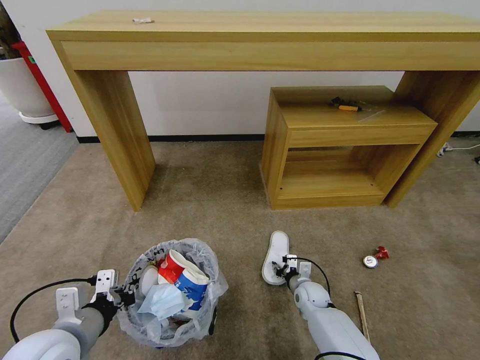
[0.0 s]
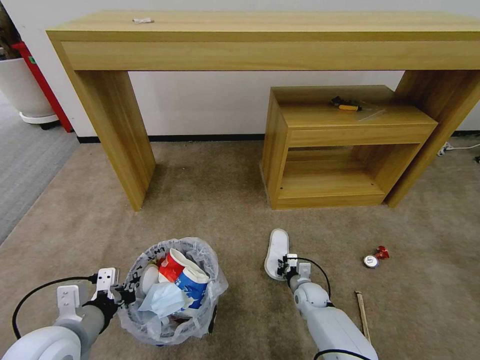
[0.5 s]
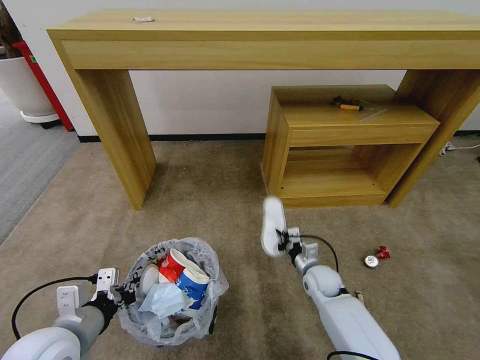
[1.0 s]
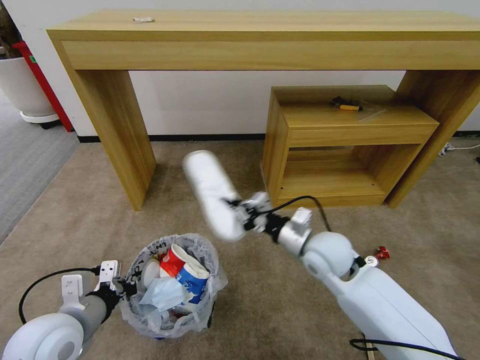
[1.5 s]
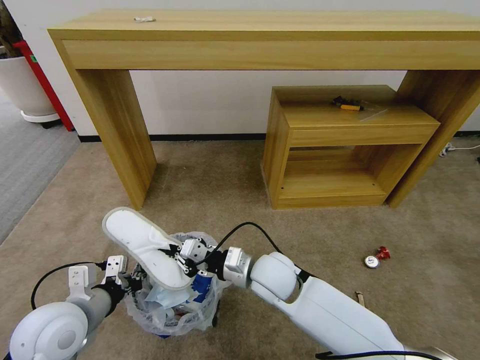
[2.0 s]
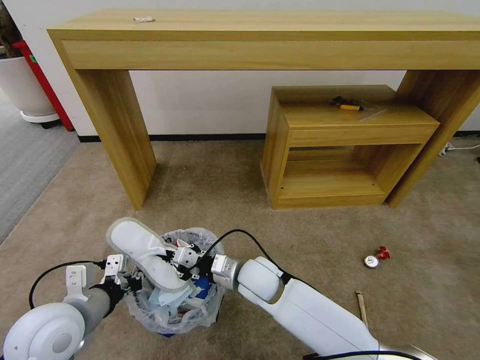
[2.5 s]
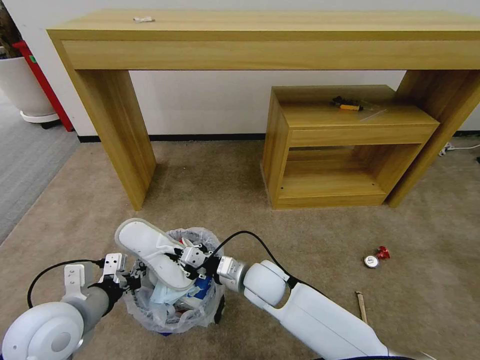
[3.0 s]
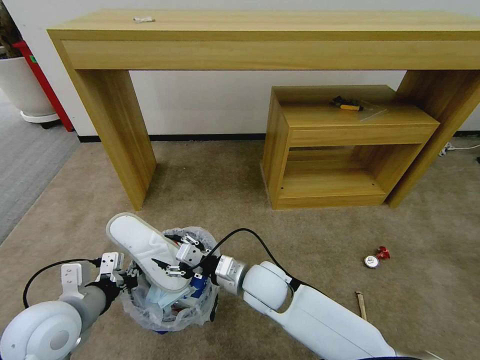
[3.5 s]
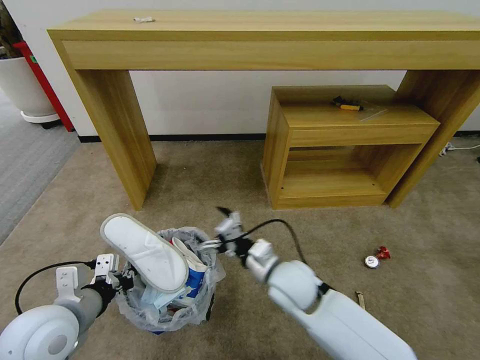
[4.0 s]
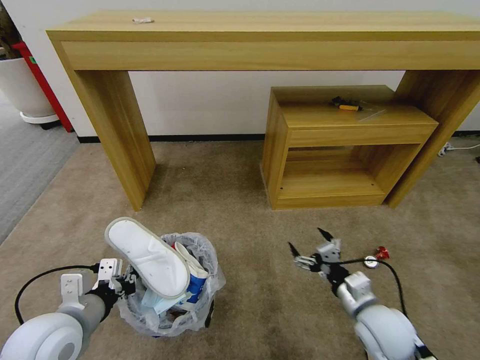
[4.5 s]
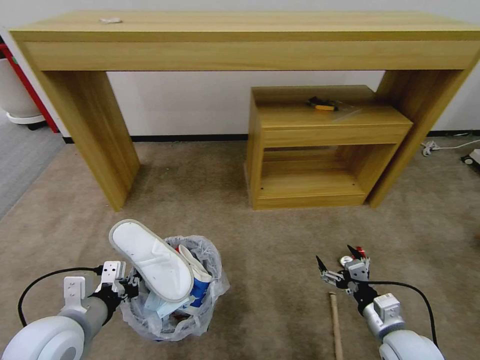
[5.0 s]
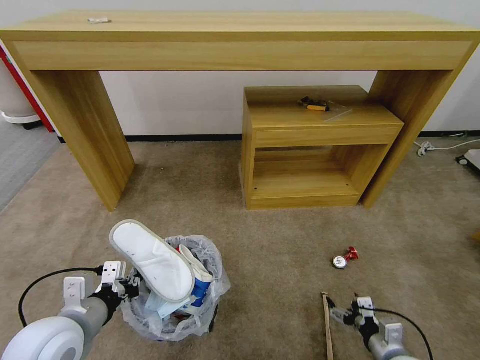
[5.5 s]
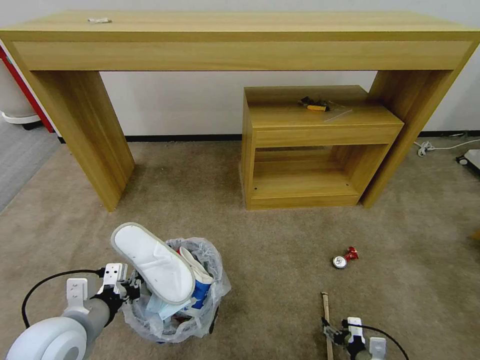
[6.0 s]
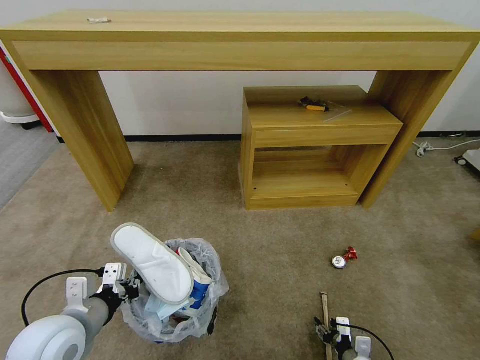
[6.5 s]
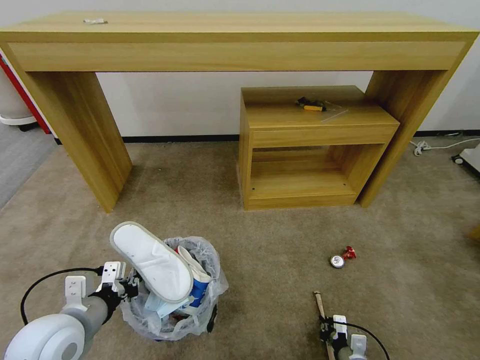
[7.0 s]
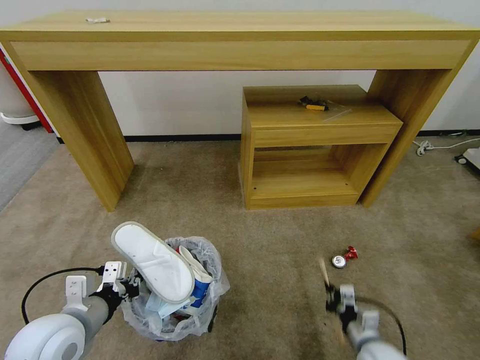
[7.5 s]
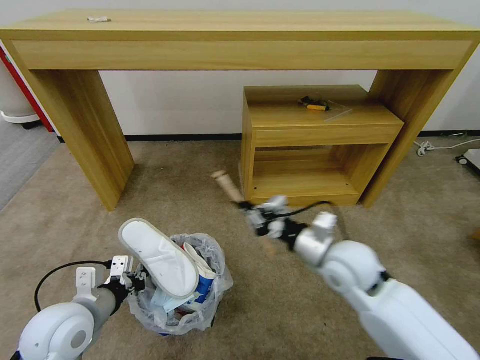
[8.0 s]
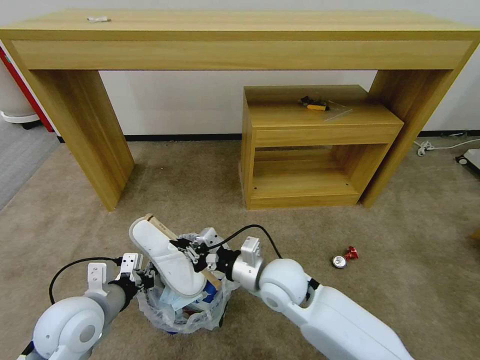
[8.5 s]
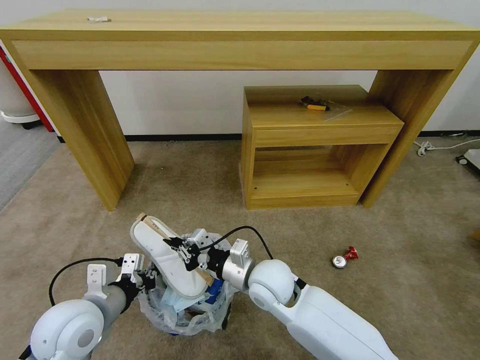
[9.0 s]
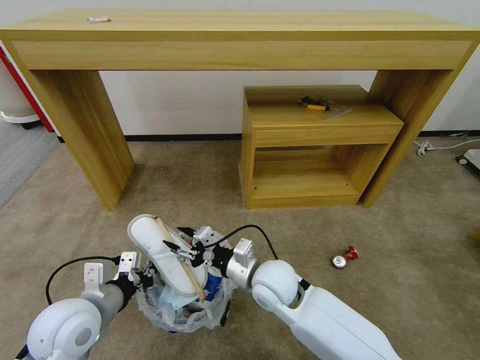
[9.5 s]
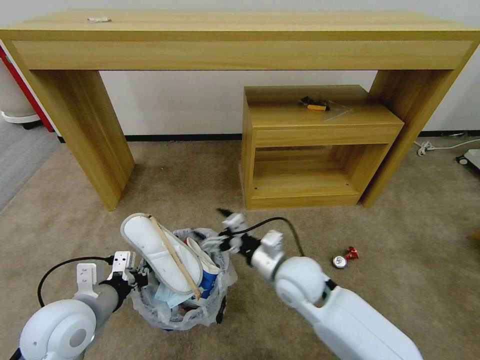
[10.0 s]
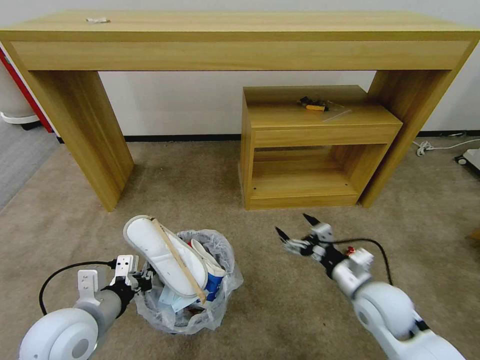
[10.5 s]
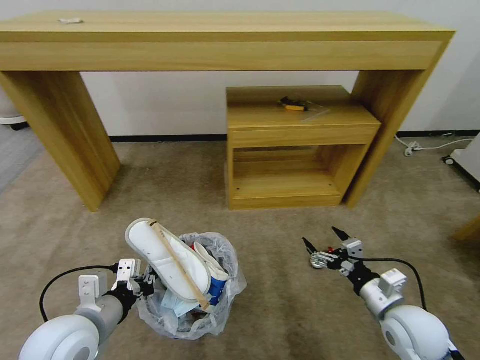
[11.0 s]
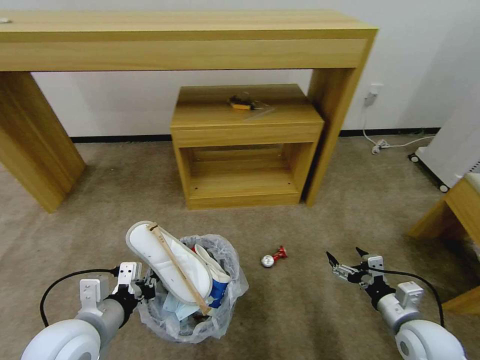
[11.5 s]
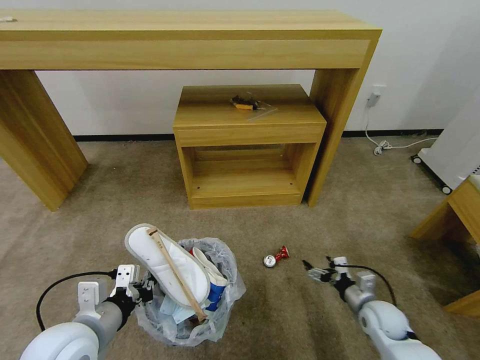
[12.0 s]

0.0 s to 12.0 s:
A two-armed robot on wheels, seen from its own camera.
Task of the whole recording: Pick up the trash bin and place the garbage on the floor into it.
0.0 to 2.0 s: The right gripper shifts roughly 30 cm upward and to the left, and closes up.
2.0 to 4.0 s: The right gripper opens up.
4.0 to 6.0 s: The right gripper travels to the right, downward and backward by about 35 cm.
6.0 to 8.0 s: The right gripper travels upward, forward and to the left by about 35 cm, and closes up.
8.0 to 10.0 s: The right gripper goes about 10 cm to the left and downward, and opens up.
10.0 to 12.0 s: The right gripper heads to the right and downward, covering roughly 30 cm.

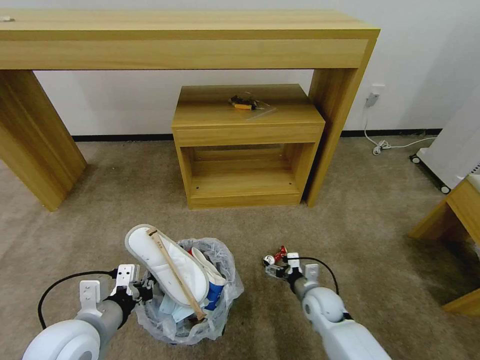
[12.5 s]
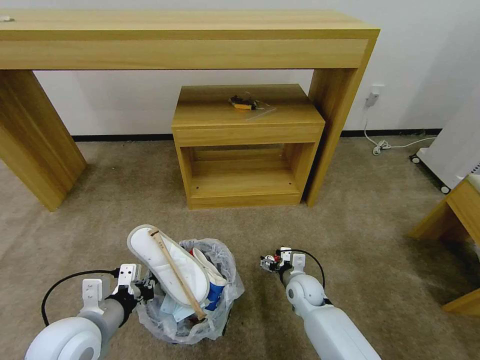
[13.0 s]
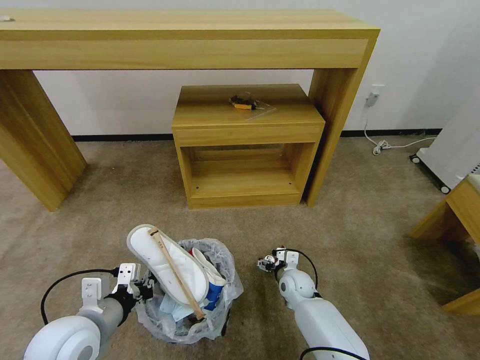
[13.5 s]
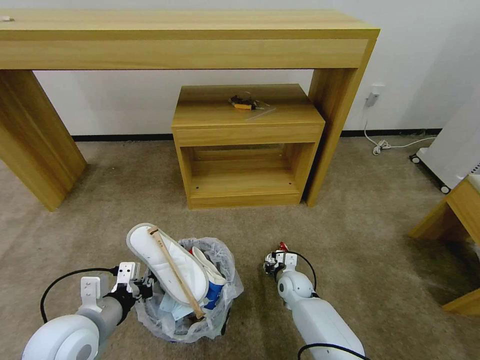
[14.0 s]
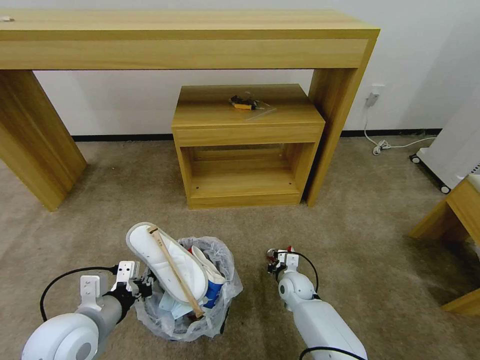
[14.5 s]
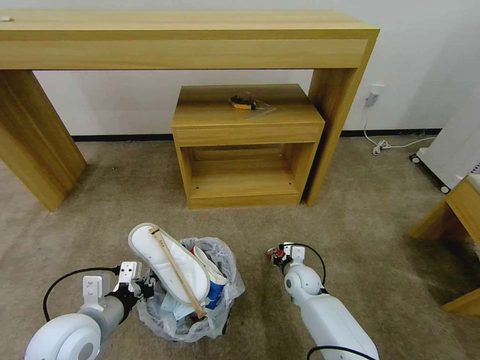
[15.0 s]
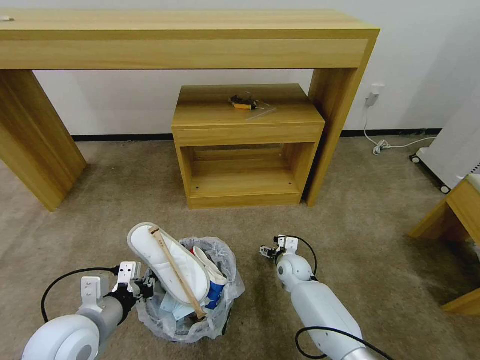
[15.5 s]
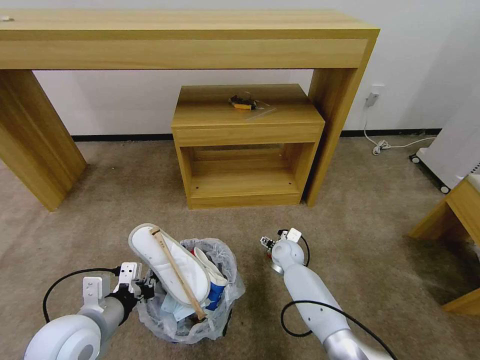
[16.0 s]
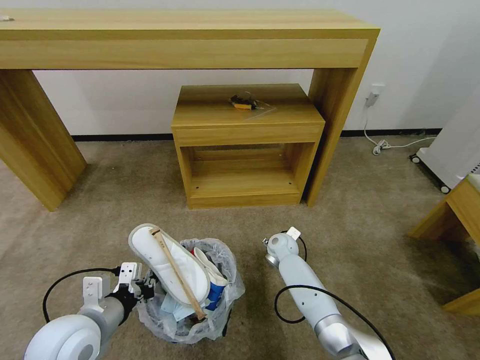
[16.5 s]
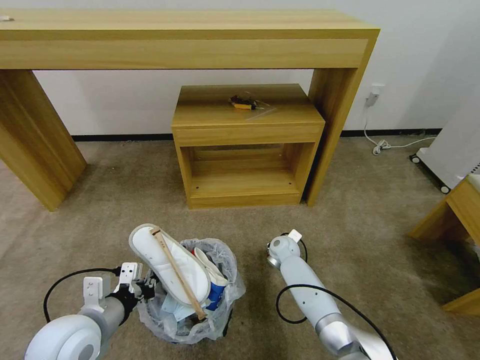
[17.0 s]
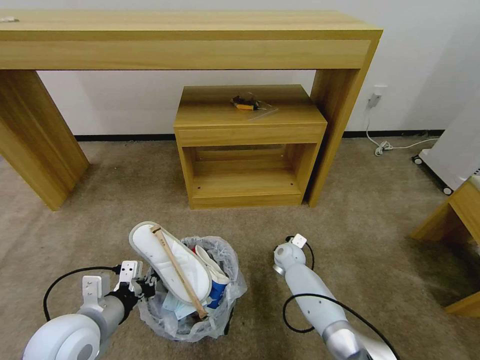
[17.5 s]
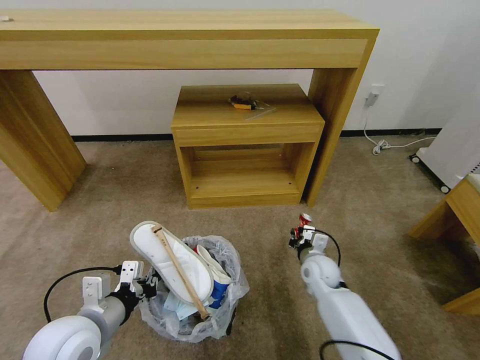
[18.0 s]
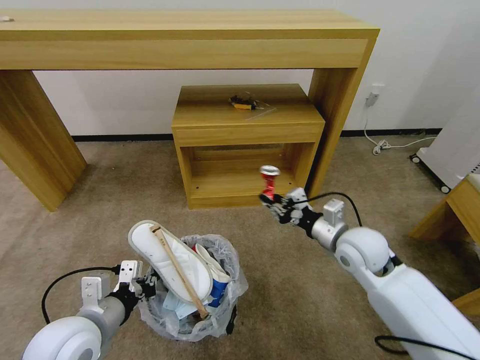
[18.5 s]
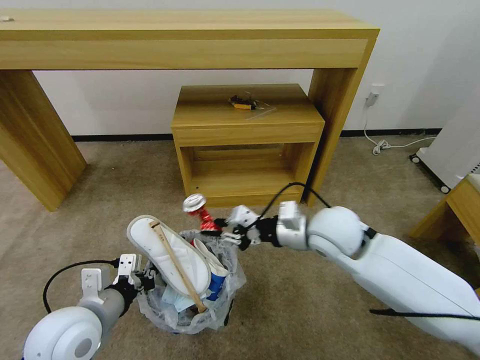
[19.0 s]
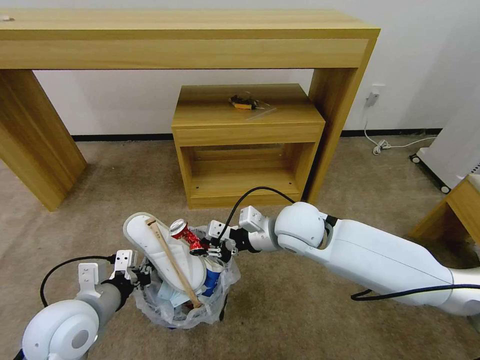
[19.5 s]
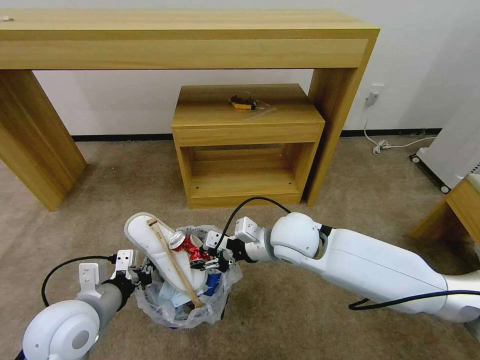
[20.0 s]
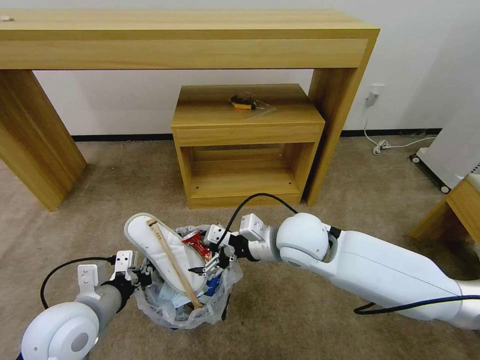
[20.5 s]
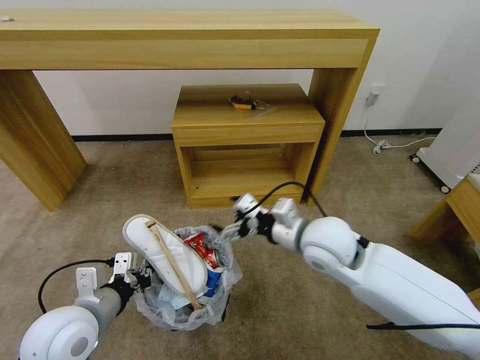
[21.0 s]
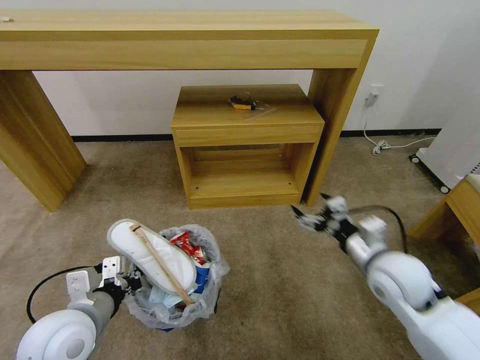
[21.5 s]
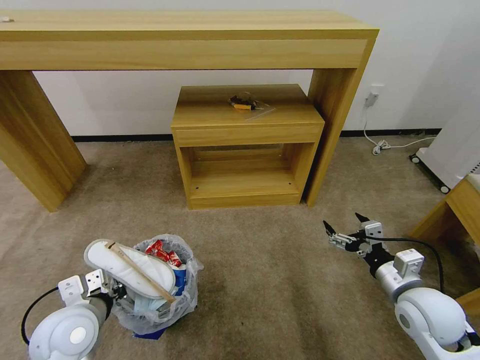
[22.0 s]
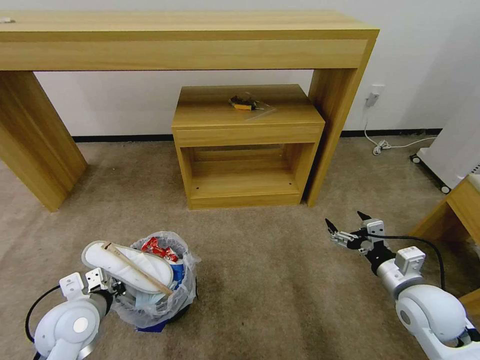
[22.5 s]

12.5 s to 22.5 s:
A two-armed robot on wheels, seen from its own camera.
Task of the whole recording: Pick up the trash bin and place the garbage on the floor into it.
12.5 to 14.5 s: The right gripper shifts some 10 cm forward and to the left, and closes up.
14.5 to 16.5 s: The right gripper goes roughly 10 cm forward and upward, and opens.
16.5 to 18.5 s: The right gripper goes approximately 25 cm upward, backward and to the right, and closes.
18.5 to 20.5 s: The right gripper heads to the left and upward, covering approximately 15 cm, and opens its fingers.
20.5 to 22.5 s: The left gripper travels downward by some 5 cm. Meanwhile the right gripper goes approximately 25 cm to the right and downward.

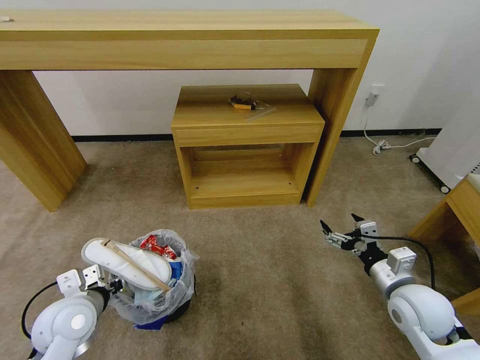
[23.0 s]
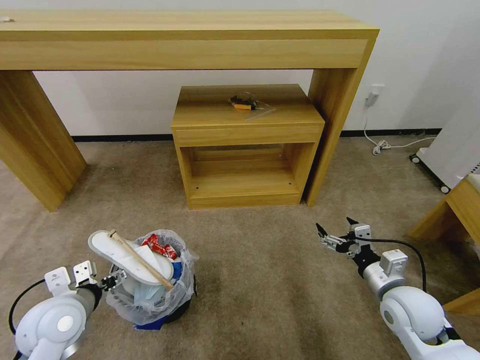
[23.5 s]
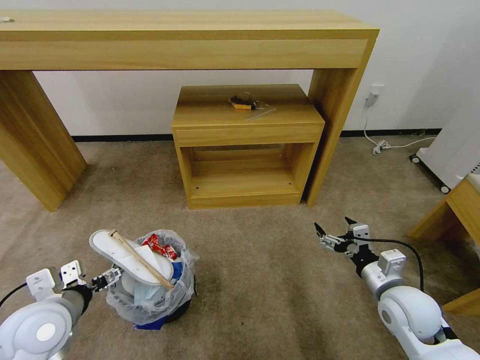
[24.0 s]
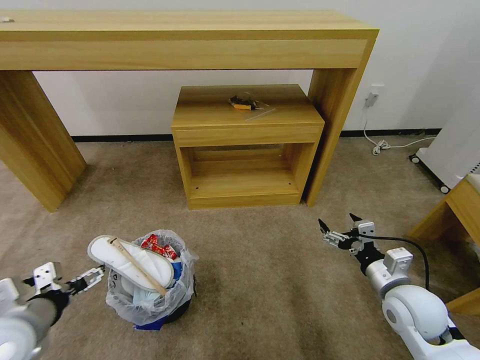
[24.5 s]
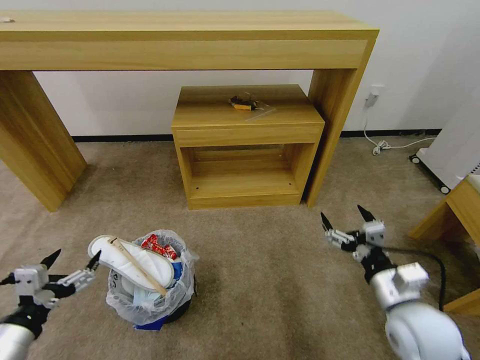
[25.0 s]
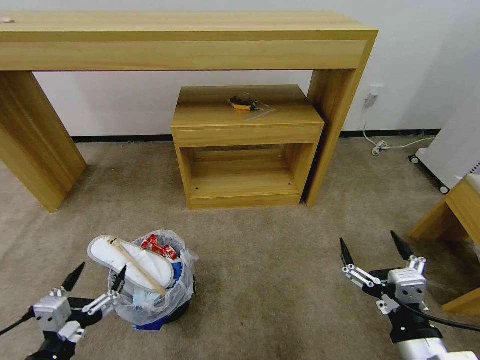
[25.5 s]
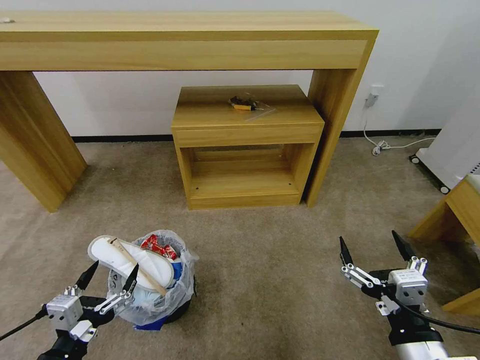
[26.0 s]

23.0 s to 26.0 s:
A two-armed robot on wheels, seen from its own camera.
Task of the whole recording: Pick up the trash bin and place the garbage on the floor into it.
23.0 to 24.5 s: The left gripper shifts roughly 10 cm upward and backward, and opens its fingers.
24.5 to 26.0 s: The right gripper travels backward and to the left by about 20 cm. Meanwhile the left gripper goes some 15 cm backward, downward and to the right.
